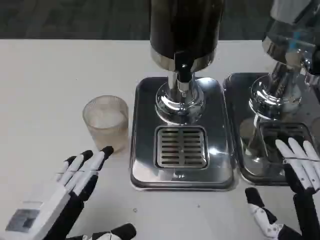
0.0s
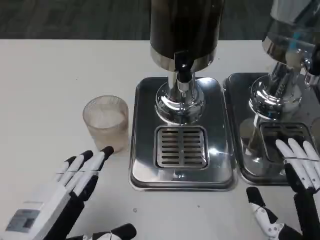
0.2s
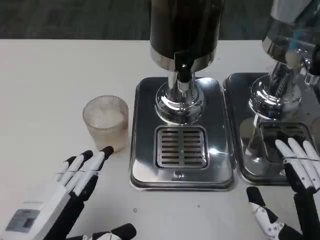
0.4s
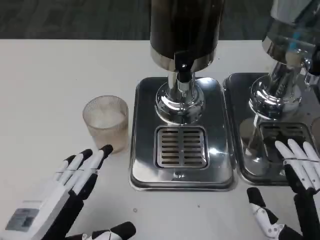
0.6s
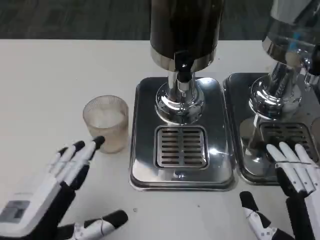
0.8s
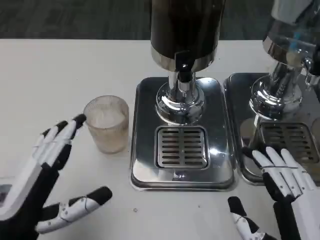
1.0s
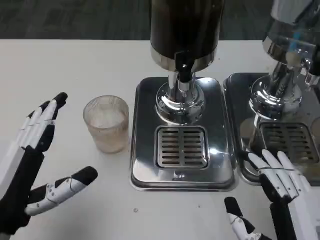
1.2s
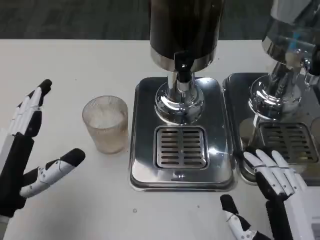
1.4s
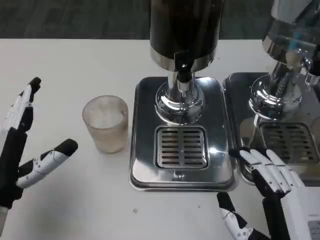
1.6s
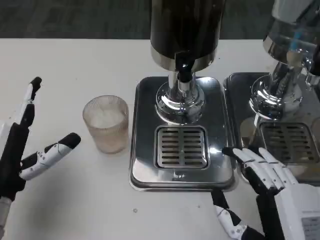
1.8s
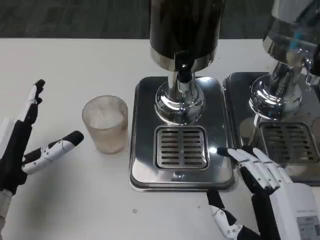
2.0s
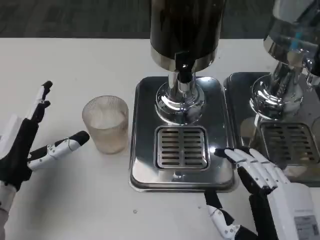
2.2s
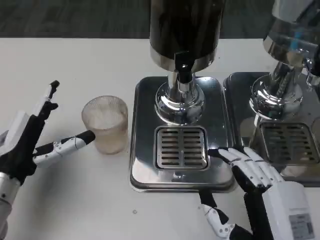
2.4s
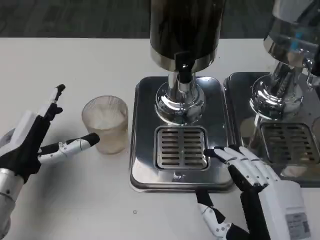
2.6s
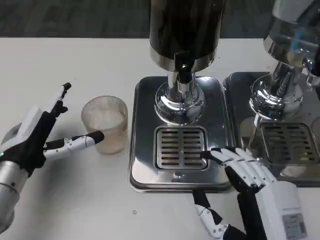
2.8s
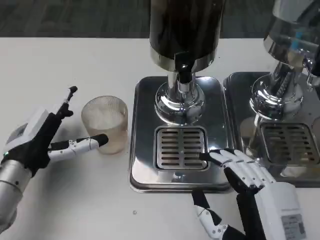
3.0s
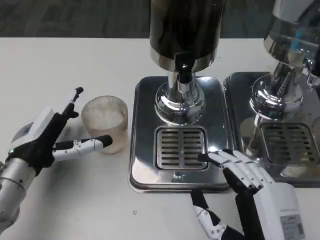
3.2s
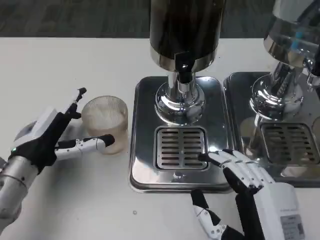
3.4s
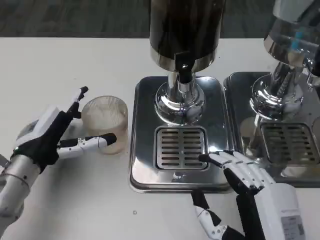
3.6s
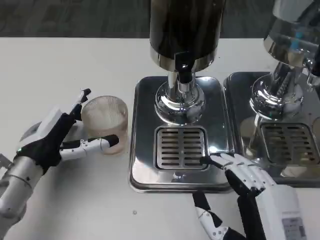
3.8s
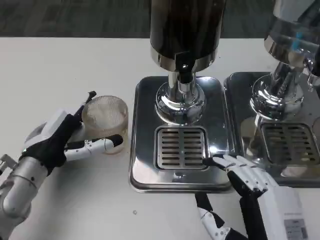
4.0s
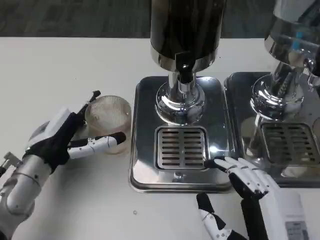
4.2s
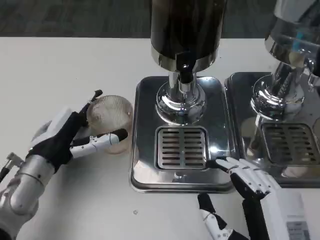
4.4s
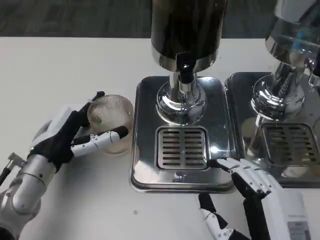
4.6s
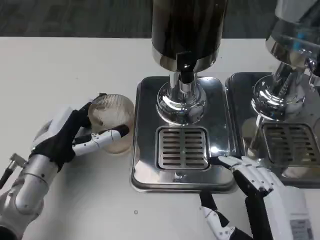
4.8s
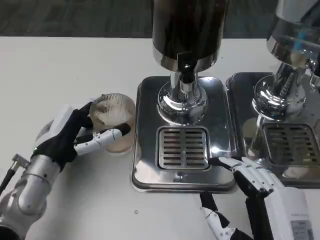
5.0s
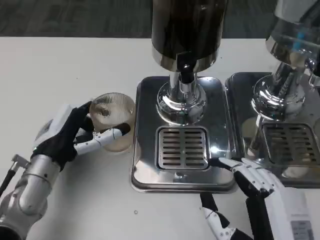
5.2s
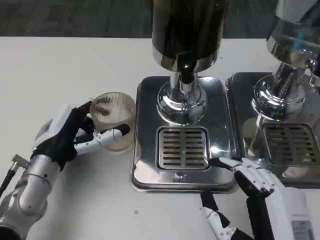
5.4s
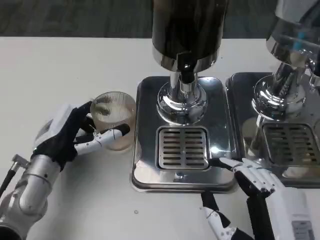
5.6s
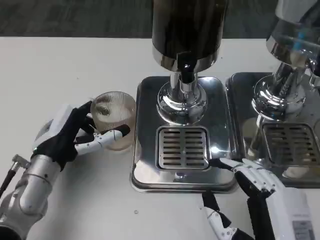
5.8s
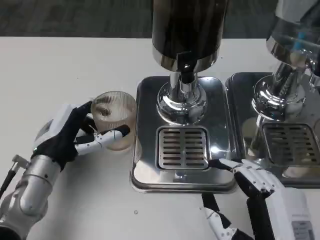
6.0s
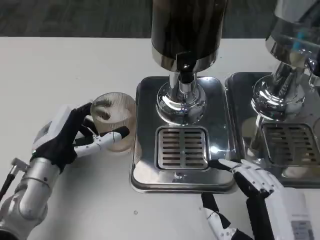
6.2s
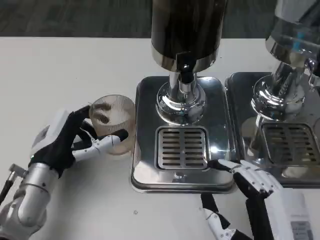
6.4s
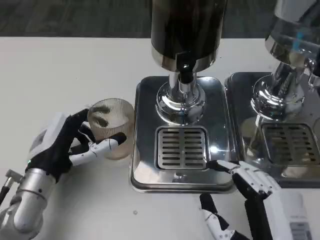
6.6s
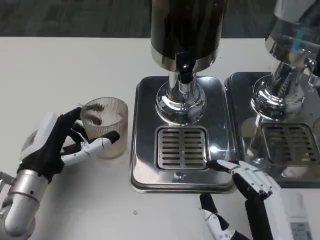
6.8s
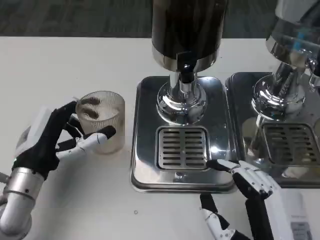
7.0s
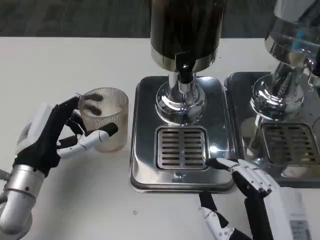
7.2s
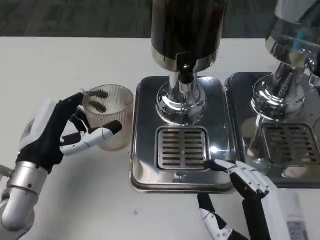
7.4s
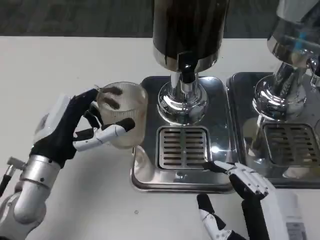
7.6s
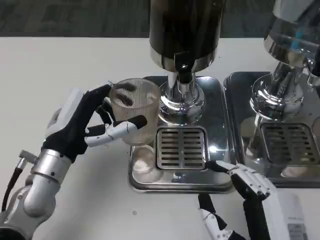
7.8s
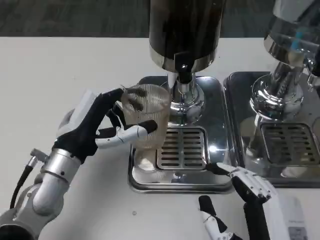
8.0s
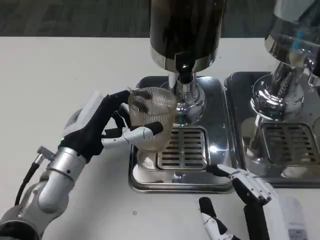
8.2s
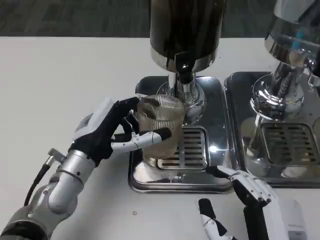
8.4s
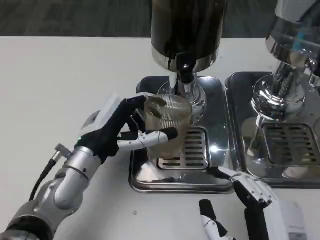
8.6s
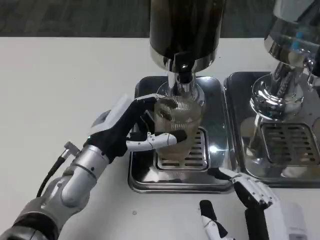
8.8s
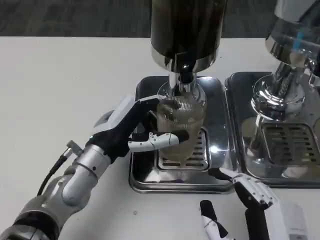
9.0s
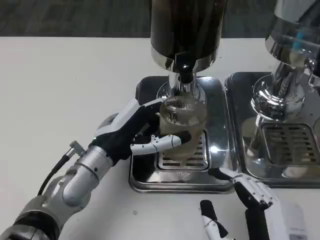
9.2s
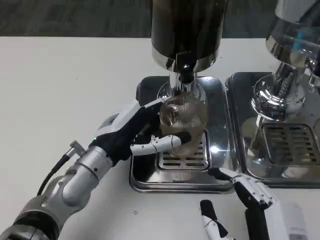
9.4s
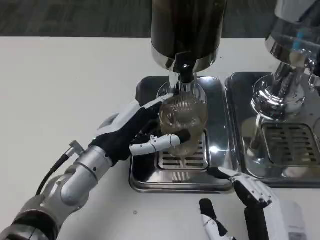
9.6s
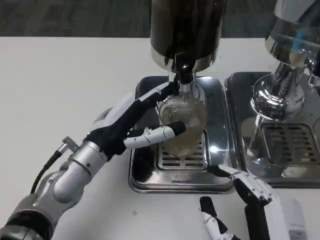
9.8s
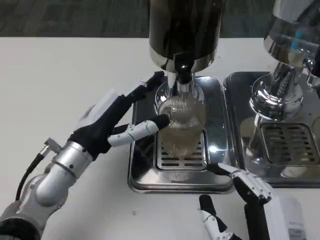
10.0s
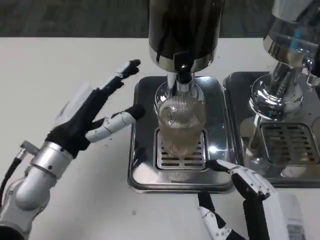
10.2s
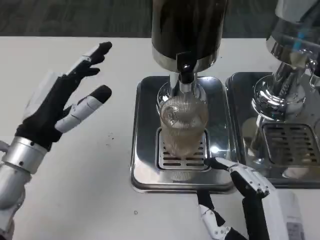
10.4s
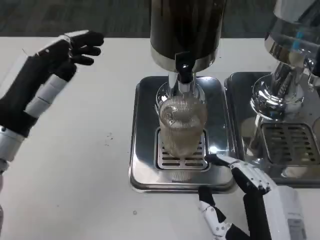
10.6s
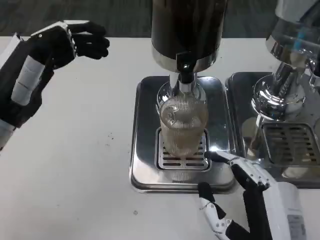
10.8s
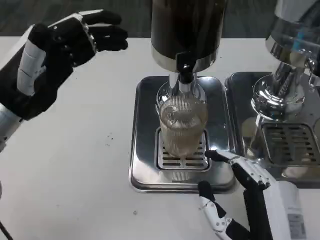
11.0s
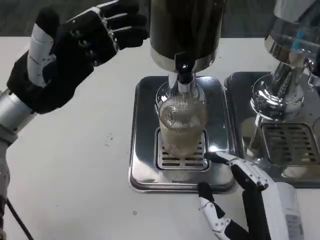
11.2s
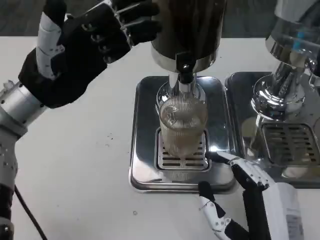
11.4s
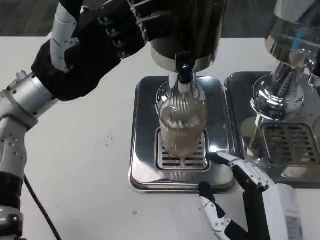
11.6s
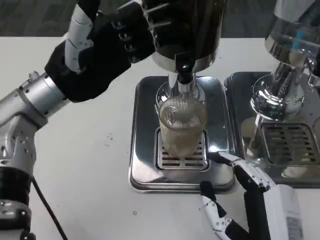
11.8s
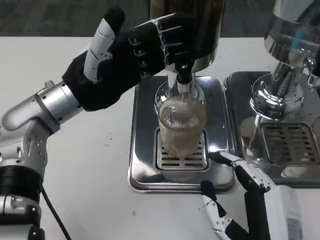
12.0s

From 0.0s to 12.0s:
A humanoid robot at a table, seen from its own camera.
Task of the whole recording: Grasp the cup under the faucet to collect the drink, then remove the cup.
From 0.0s to 1.6s: The left hand shifts about 10 cm forward.
From 1.6s to 3.0s: The left hand goes some 5 cm forward.
From 4.4s to 6.0s: The two hands keep their place.
From 6.0s to 7.6s: The hands stay close to where they were, moving slightly.
From 7.6s to 9.0s: The left hand moves to the right, about 5 cm.
From 9.0s to 10.4s: The left hand heads to the left, covering approximately 10 cm.
From 10.4s to 12.0s: The left hand travels forward and upward by about 10 cm.

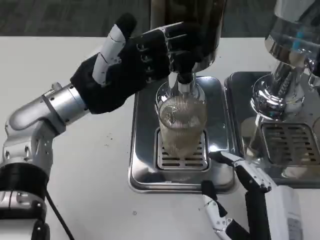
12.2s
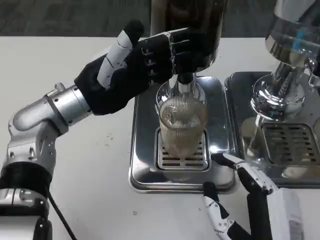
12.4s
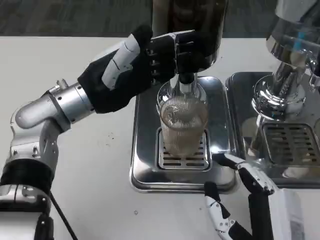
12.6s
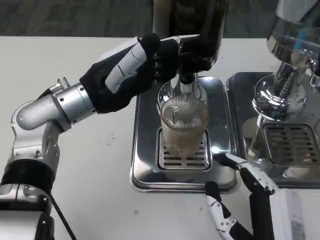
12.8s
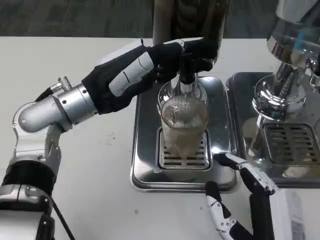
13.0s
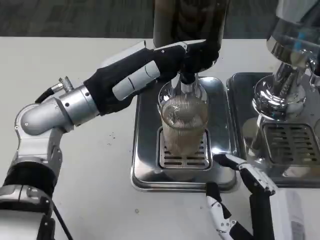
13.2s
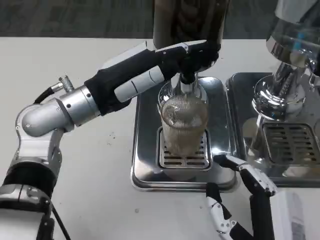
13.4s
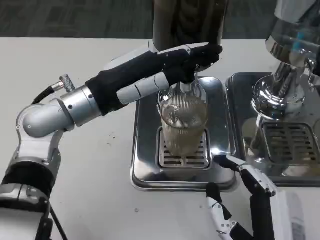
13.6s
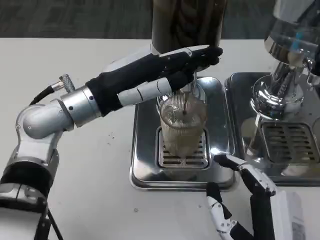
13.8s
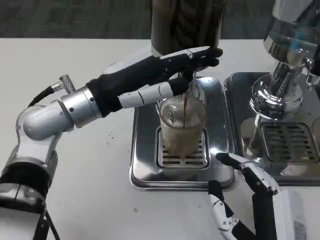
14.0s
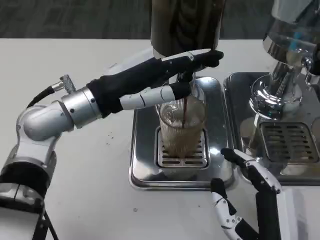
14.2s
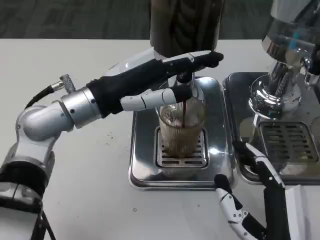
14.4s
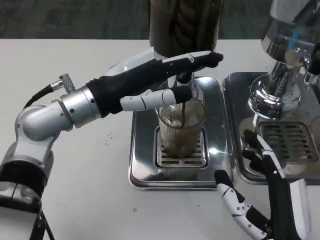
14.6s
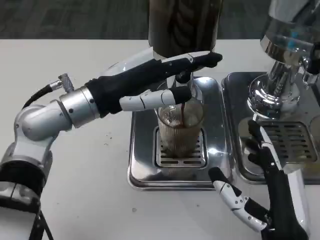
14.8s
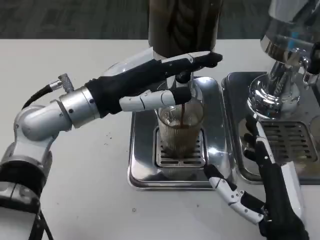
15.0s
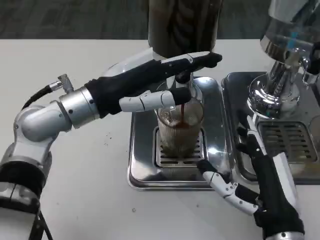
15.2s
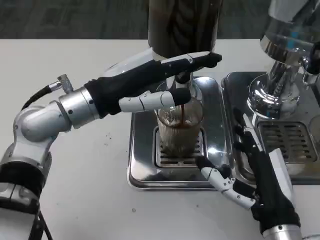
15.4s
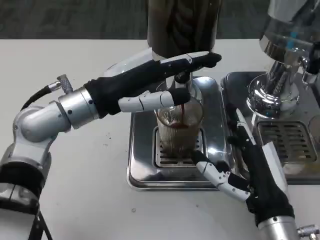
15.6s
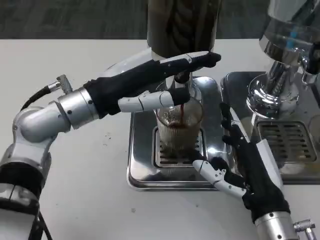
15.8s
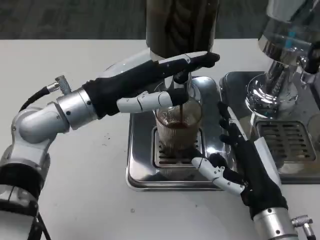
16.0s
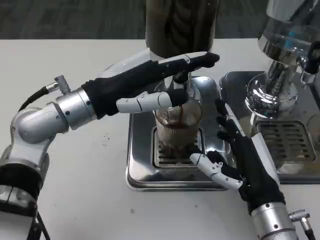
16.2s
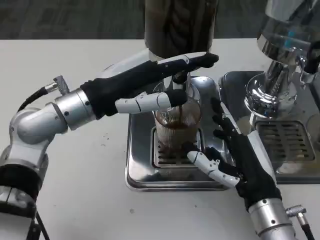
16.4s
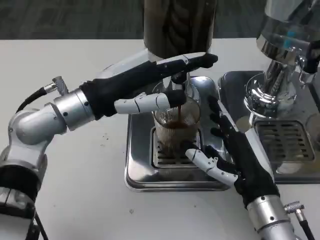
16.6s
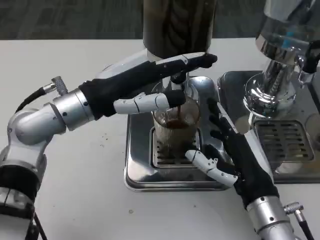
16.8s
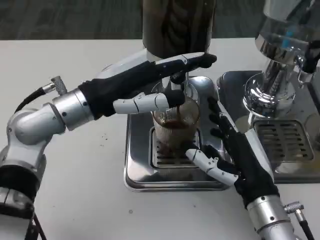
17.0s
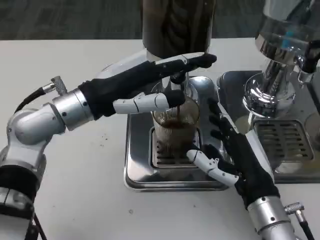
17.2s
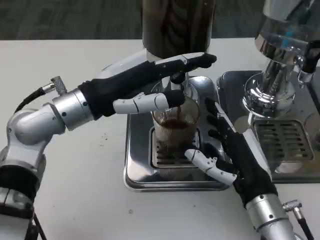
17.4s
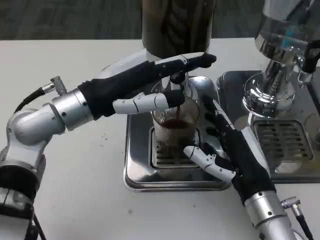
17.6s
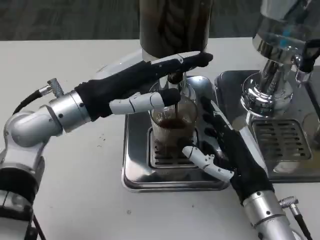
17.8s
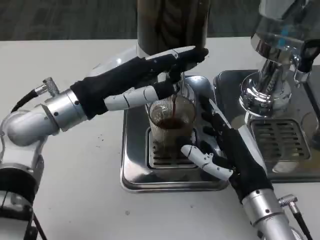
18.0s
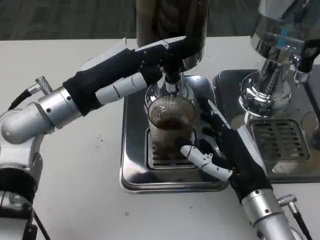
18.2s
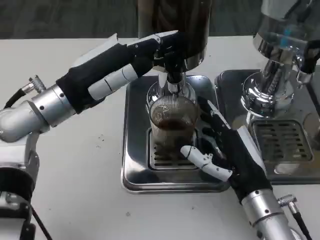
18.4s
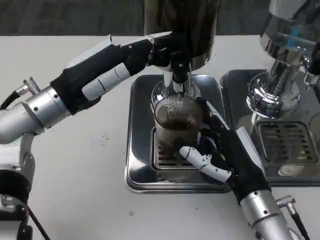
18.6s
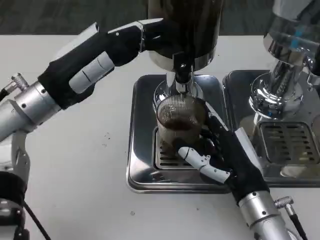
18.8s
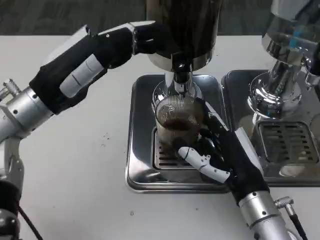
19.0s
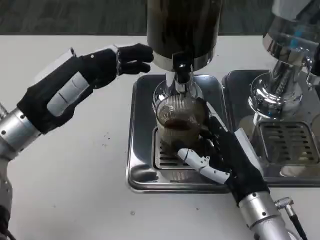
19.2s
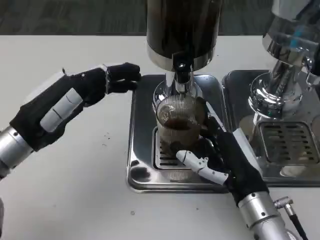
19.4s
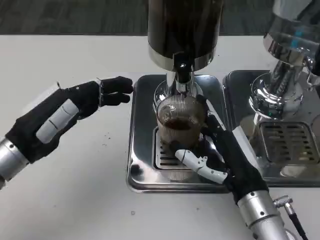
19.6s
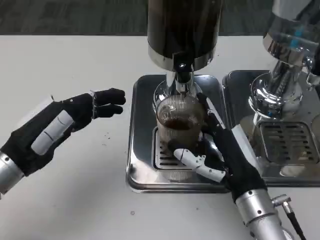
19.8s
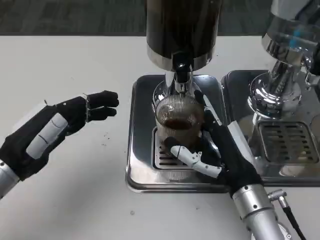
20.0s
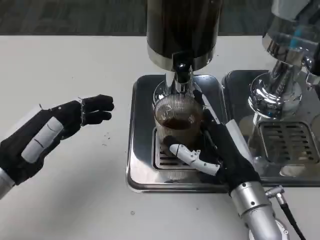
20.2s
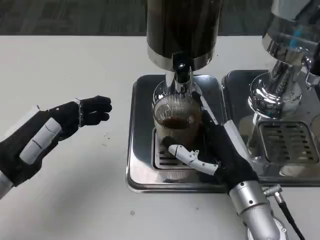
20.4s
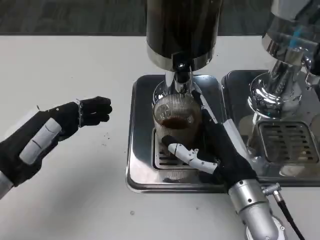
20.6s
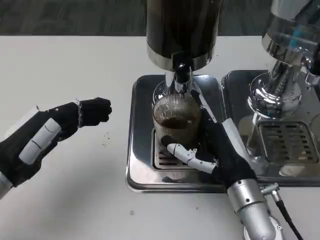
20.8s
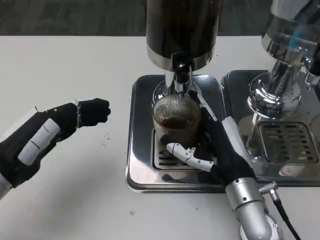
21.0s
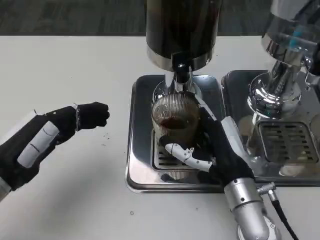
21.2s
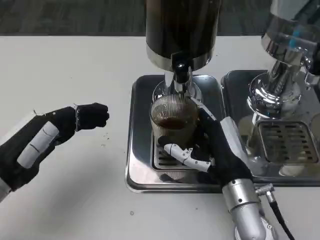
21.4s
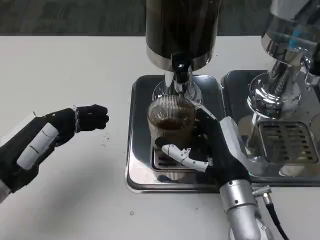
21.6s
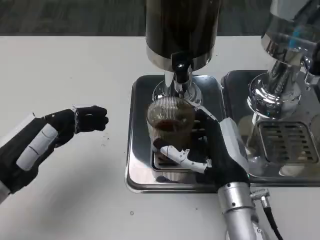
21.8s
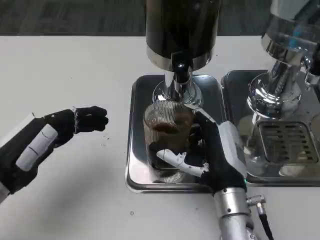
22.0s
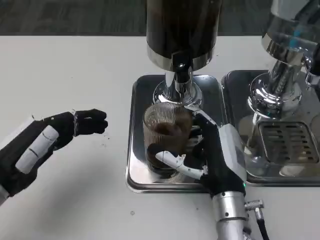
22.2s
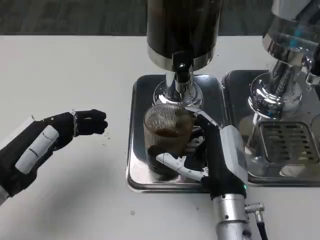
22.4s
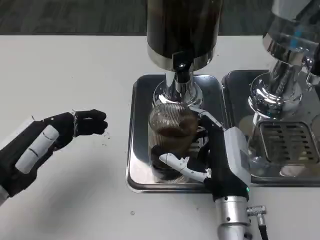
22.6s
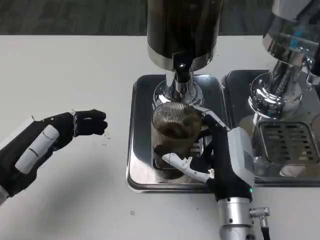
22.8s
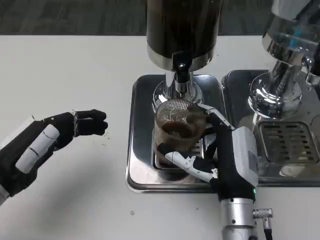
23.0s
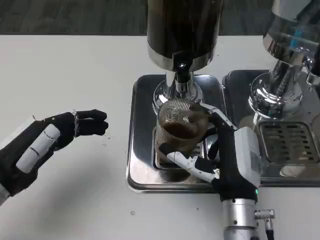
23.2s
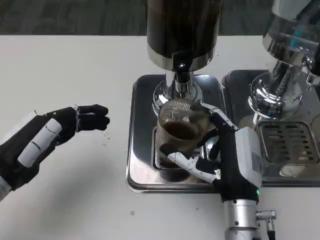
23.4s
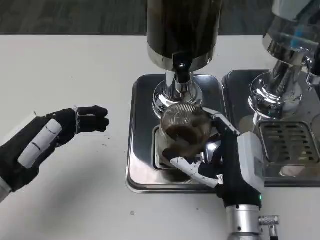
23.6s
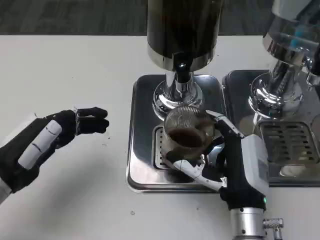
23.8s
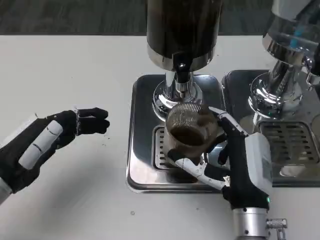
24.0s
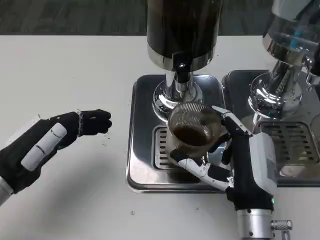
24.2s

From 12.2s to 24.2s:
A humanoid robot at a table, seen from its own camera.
Task of the whole recording: Grasp the cup under the faucet to collect the drink, then remove the cup.
From 13.8s to 15.2s: The right hand moves forward, roughly 5 cm.
From 15.2s to 16.6s: The right hand moves forward, some 5 cm.
From 18.2s to 19.8s: The left hand moves backward, to the left and downward, some 10 cm.
From 19.8s to 22.6s: The hands move only a little.
From 22.6s to 24.2s: The hands move only a little.
